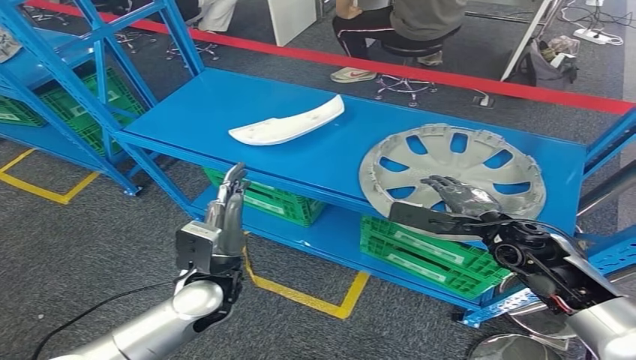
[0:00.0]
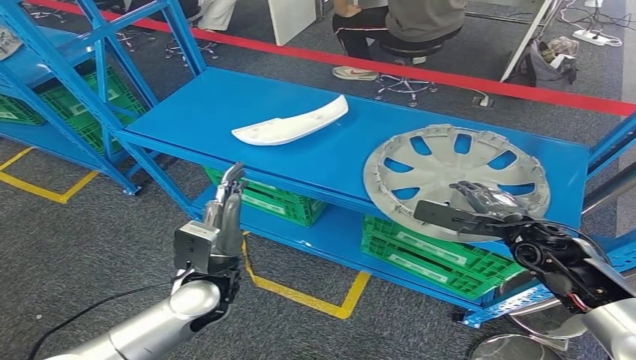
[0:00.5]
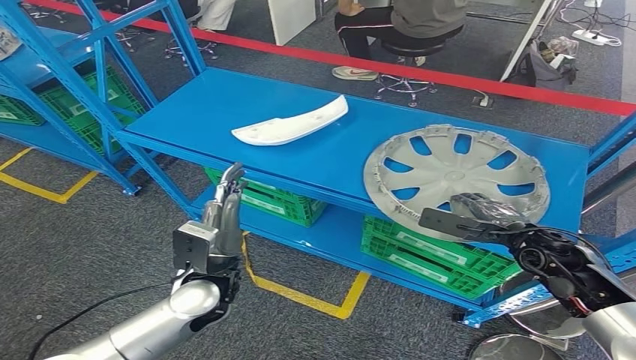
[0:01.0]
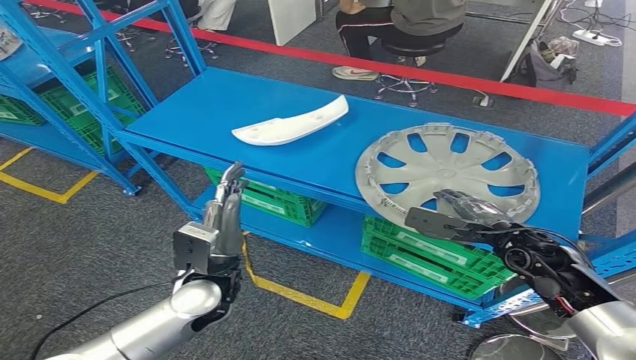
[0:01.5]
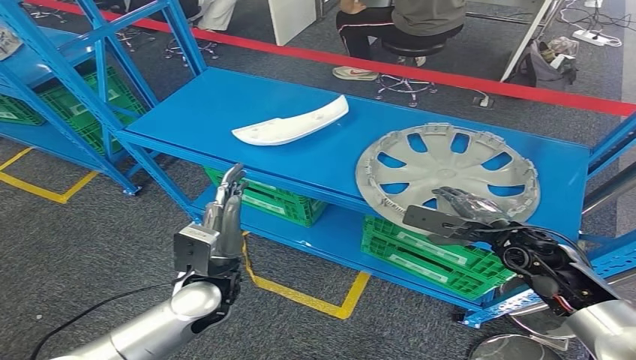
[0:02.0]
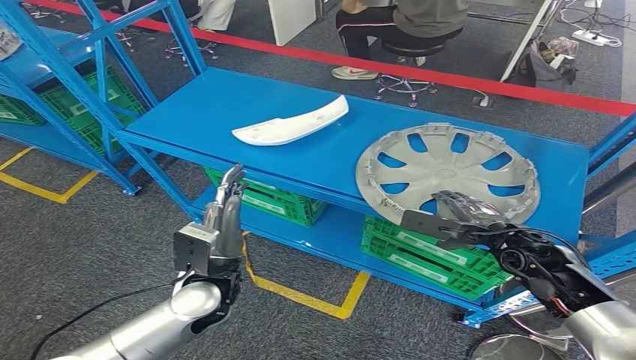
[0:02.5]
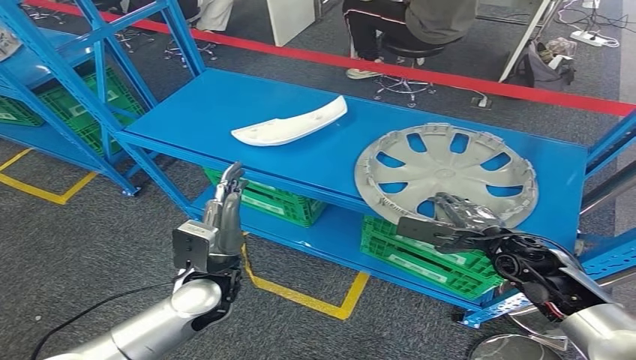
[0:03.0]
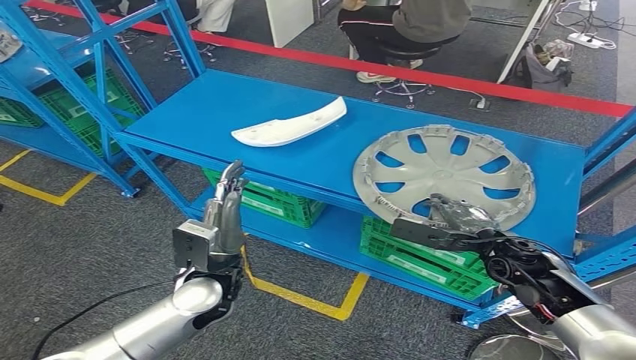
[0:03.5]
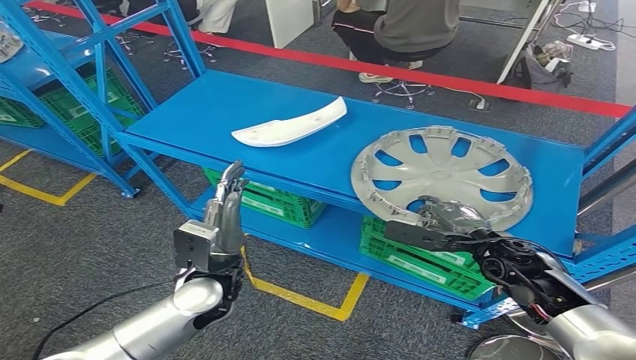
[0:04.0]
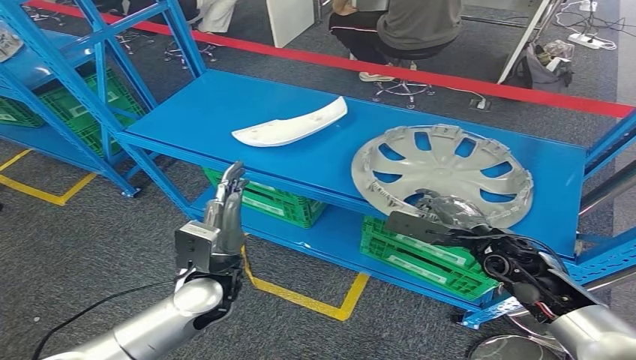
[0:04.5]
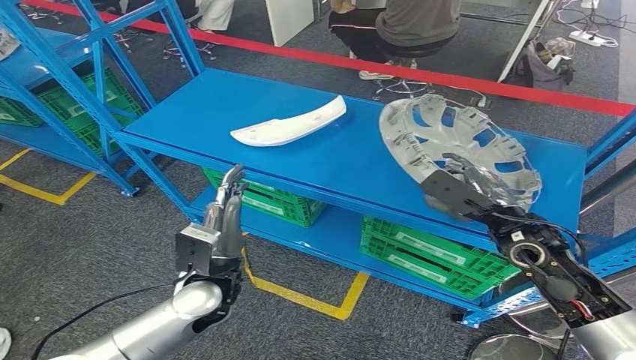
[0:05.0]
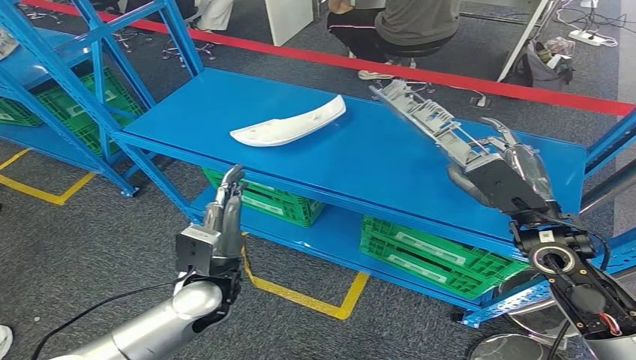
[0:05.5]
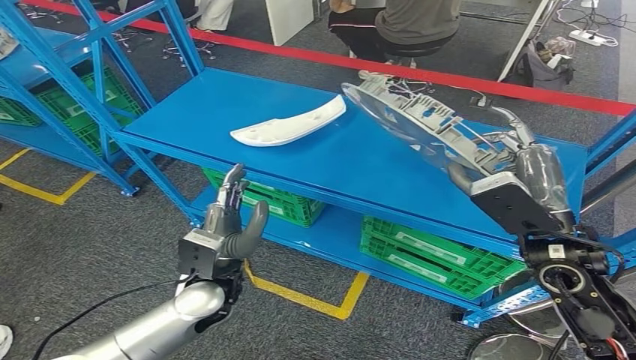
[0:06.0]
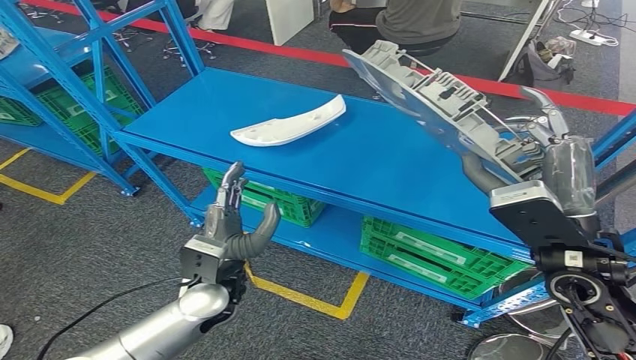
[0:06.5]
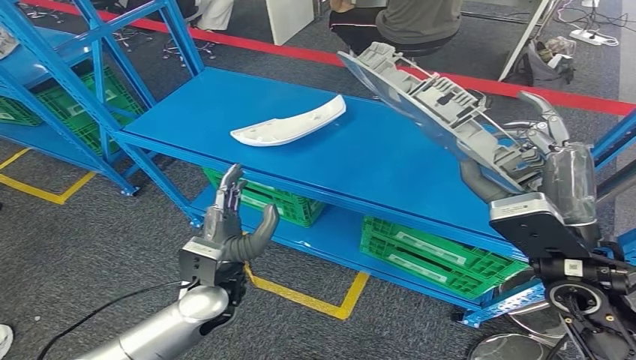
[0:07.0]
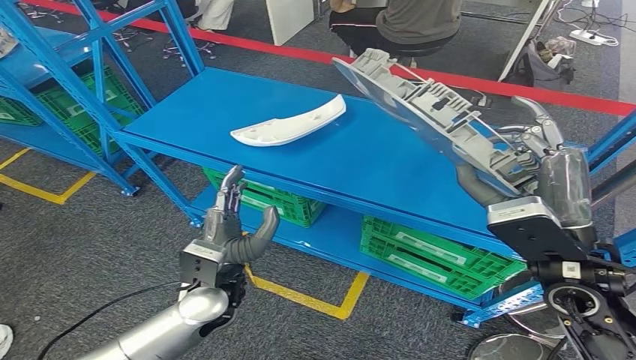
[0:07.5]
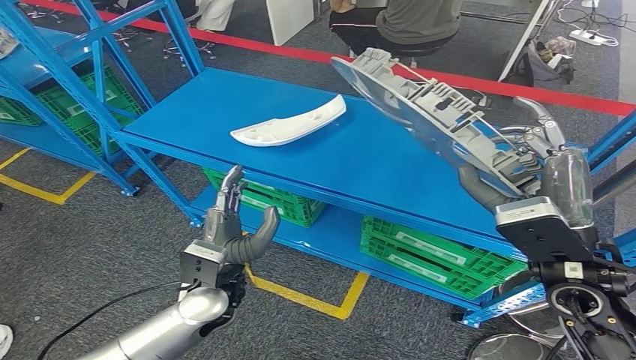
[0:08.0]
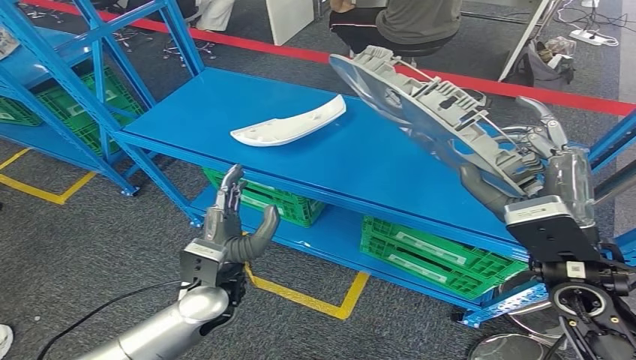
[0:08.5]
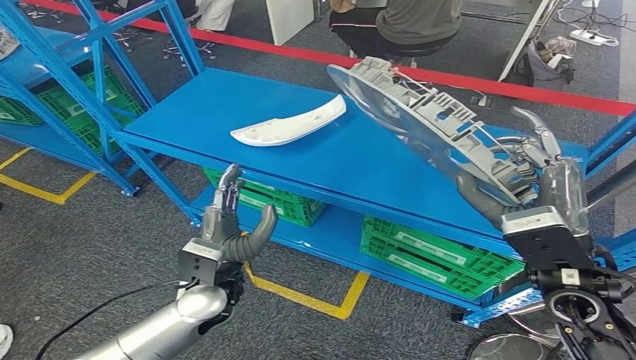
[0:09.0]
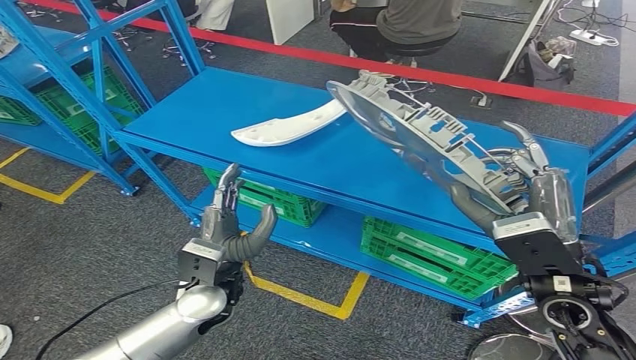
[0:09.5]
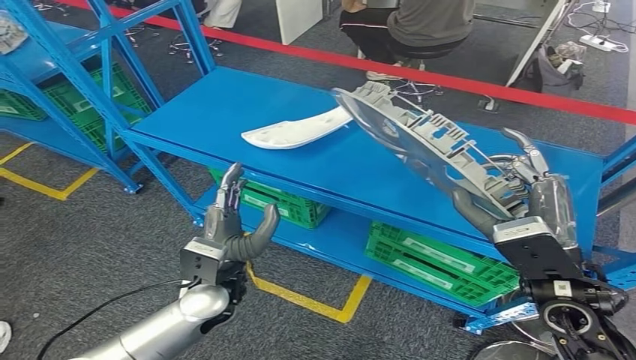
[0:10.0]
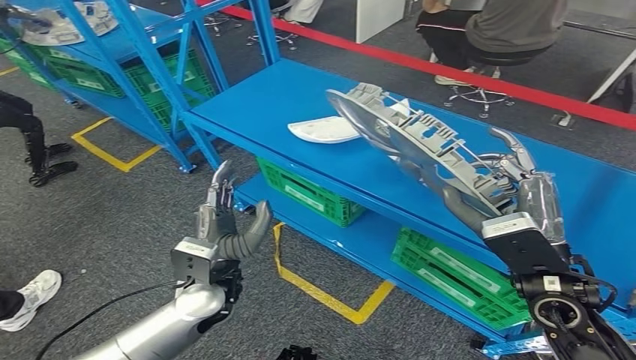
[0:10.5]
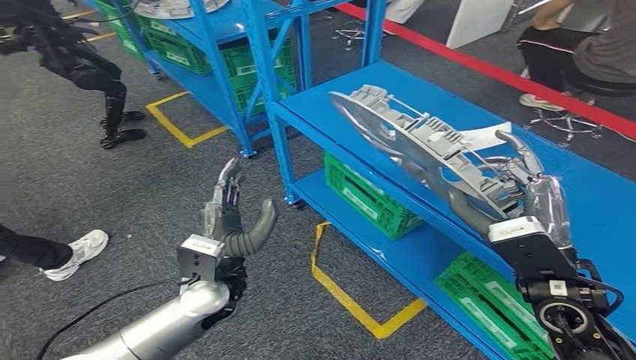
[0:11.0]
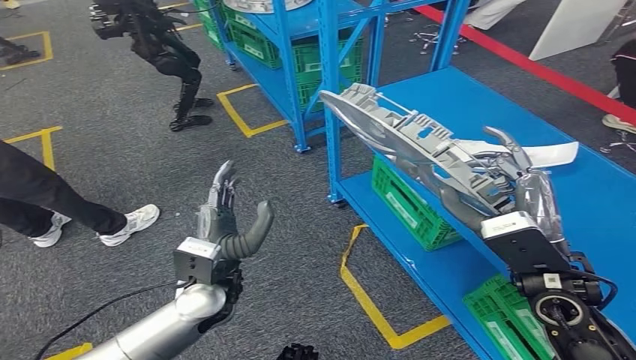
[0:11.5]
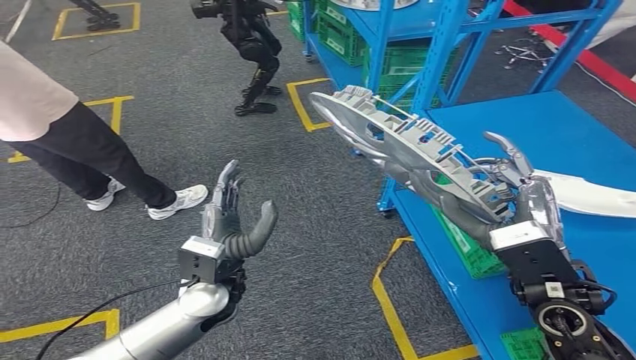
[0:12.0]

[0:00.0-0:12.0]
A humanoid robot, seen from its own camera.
Step, 0:00.0 to 0:06.5: Pick up the small parts from the shelf.
0:00.0 to 0:04.0: The hands stay close to where they were, moving slightly.
0:06.0 to 0:08.0: The hands make only small movements.

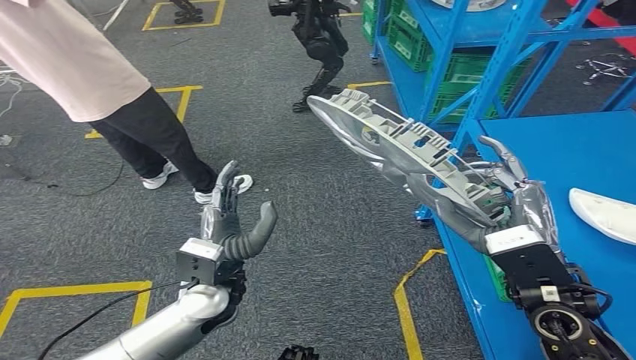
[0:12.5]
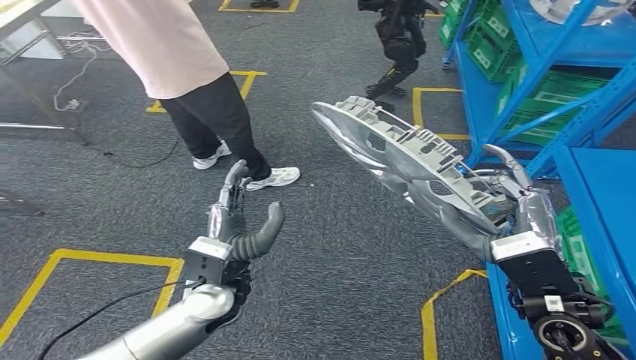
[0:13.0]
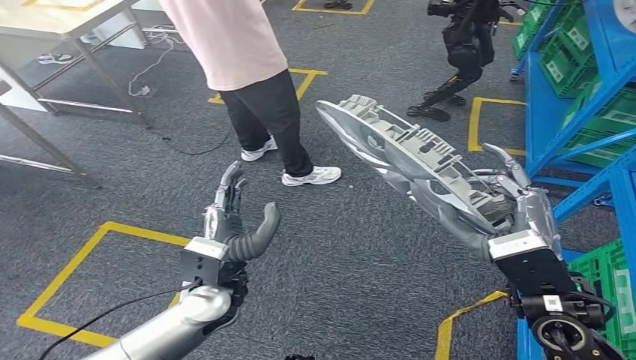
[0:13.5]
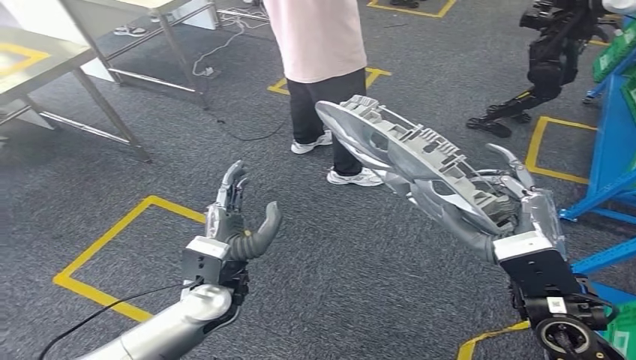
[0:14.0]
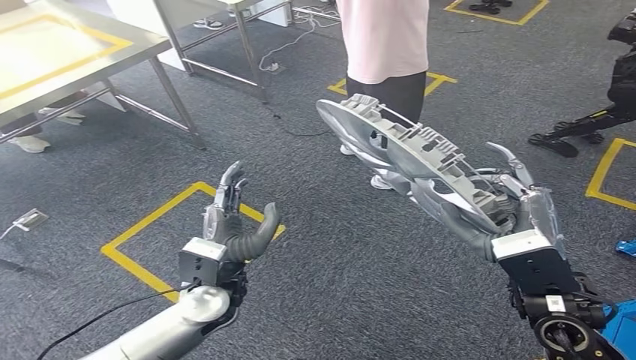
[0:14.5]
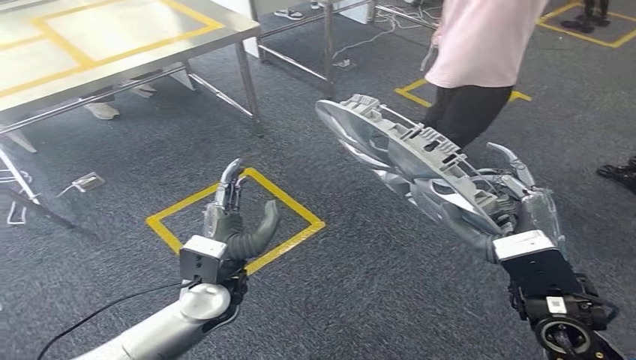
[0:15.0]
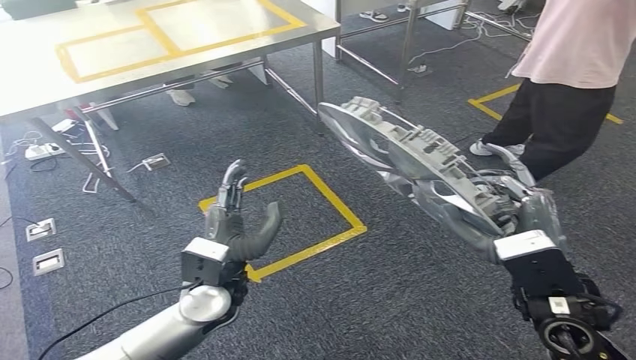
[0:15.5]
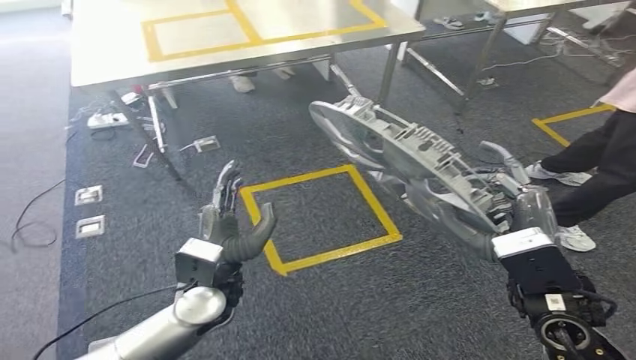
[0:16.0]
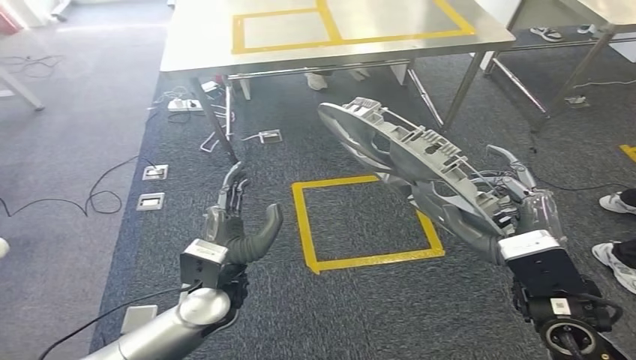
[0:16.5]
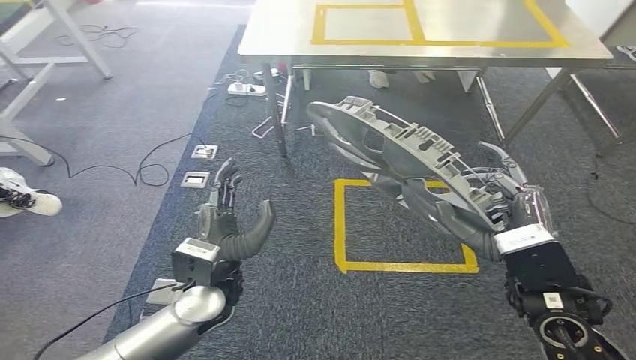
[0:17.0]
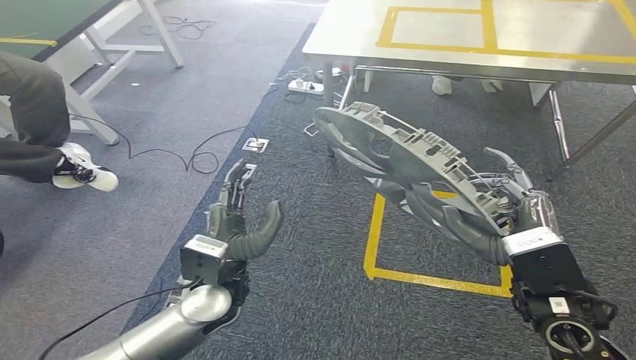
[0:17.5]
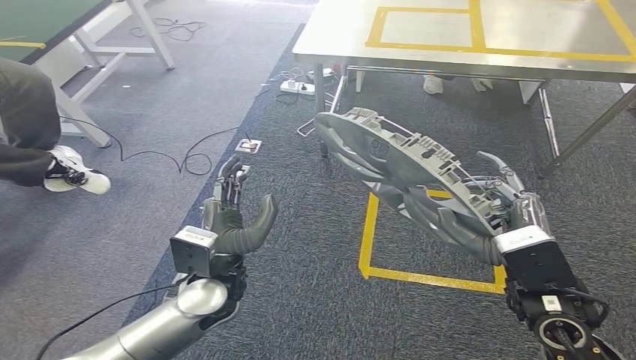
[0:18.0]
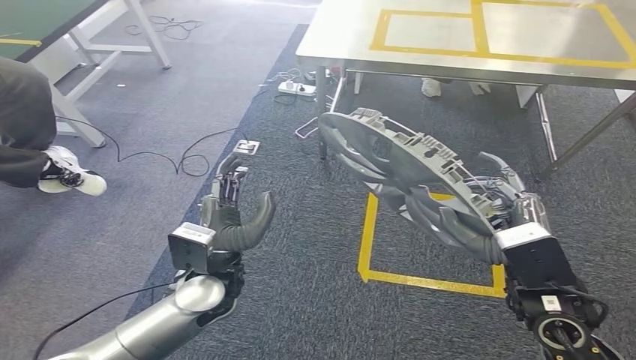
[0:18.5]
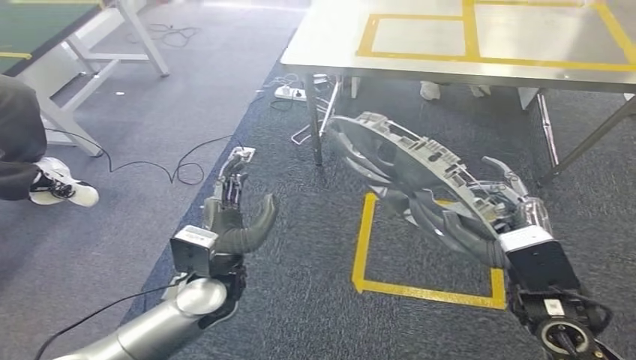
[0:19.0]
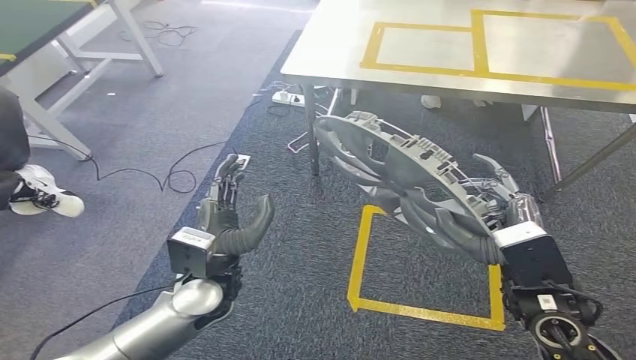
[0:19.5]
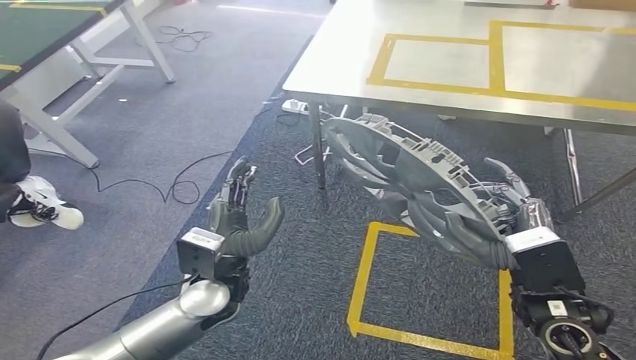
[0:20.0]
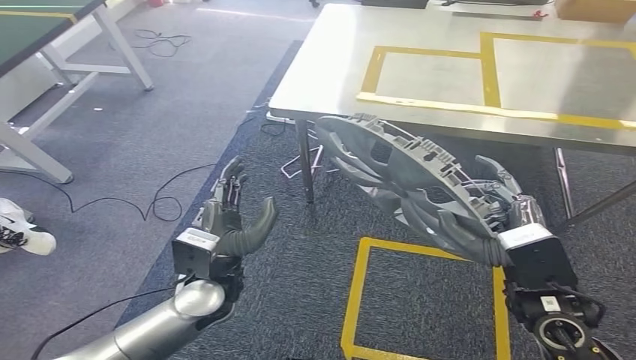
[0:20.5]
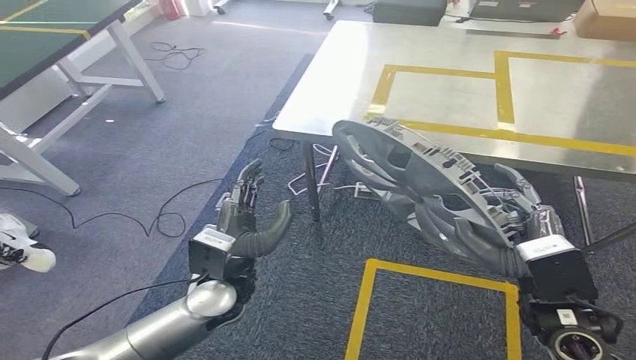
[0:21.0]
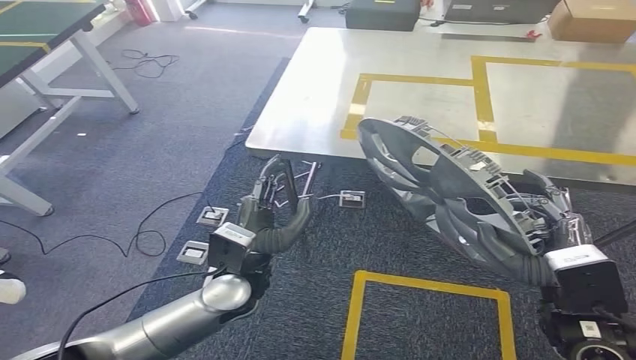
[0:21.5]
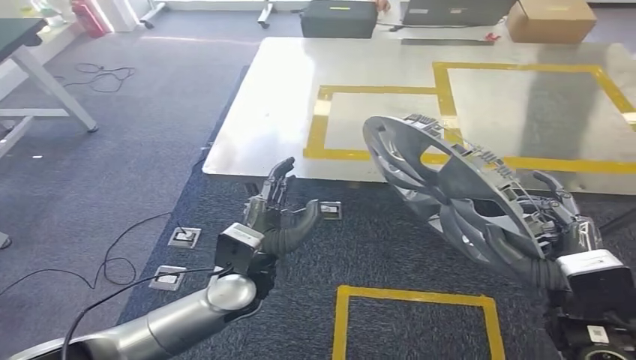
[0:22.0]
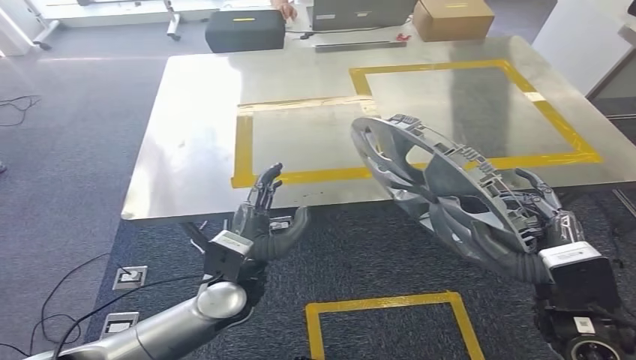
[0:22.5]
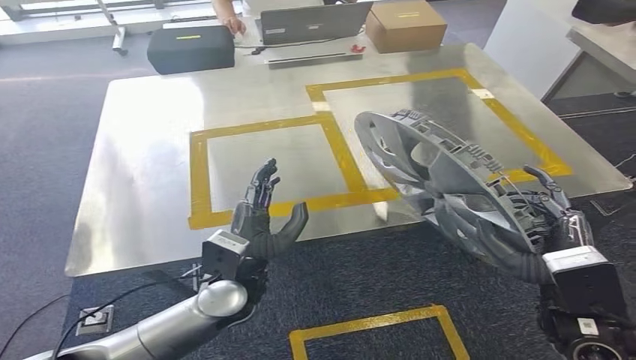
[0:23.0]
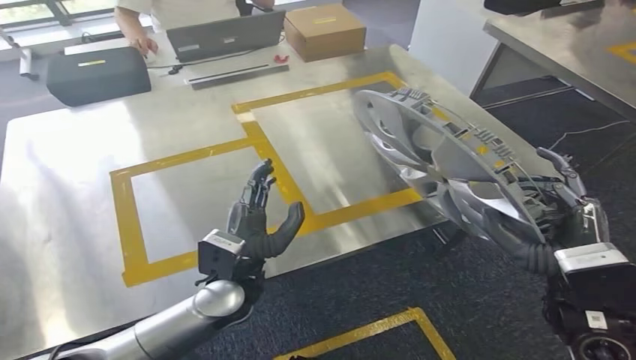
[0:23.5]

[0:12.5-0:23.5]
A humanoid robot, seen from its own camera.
Step, 0:12.5 to 0:23.0: Move the small parts to the workbench.
